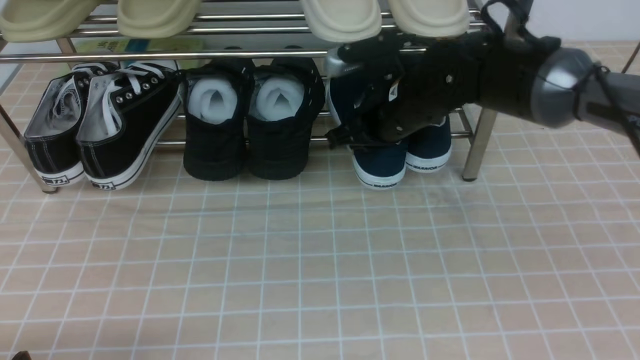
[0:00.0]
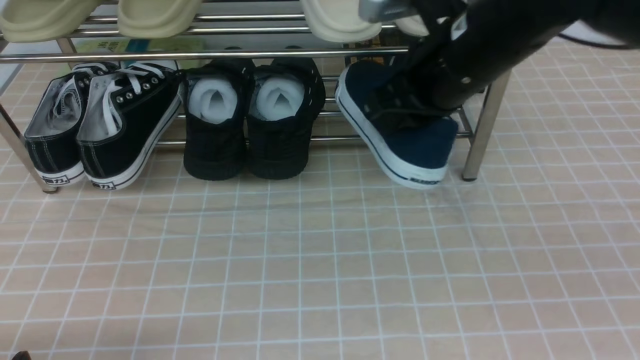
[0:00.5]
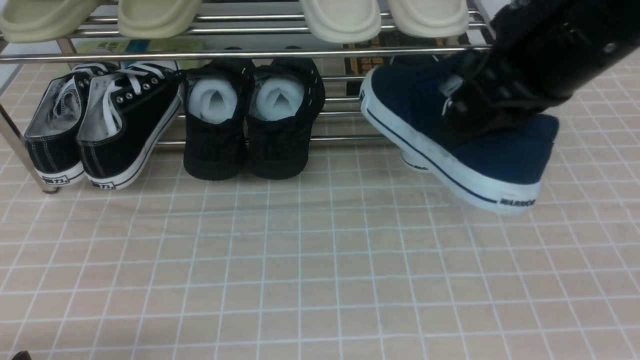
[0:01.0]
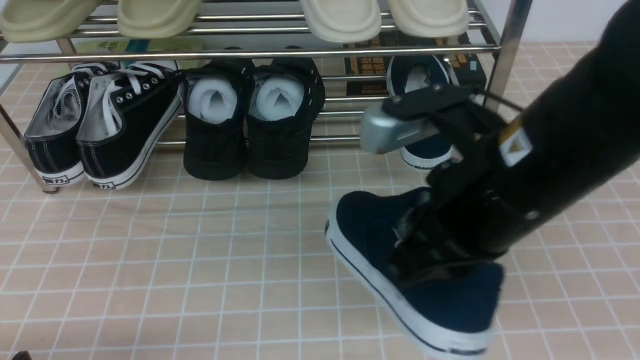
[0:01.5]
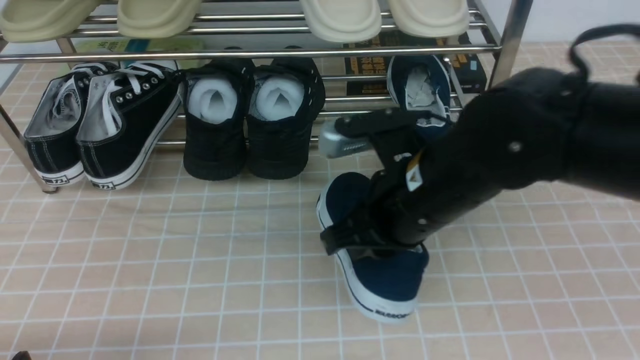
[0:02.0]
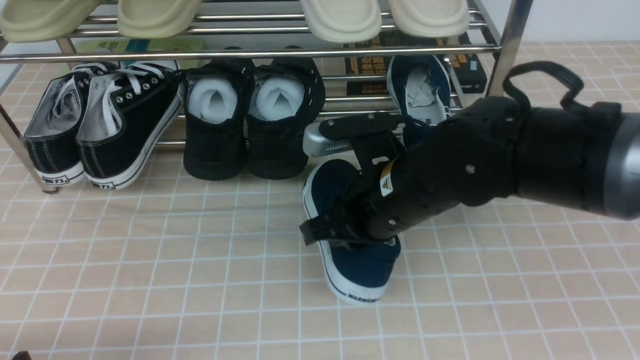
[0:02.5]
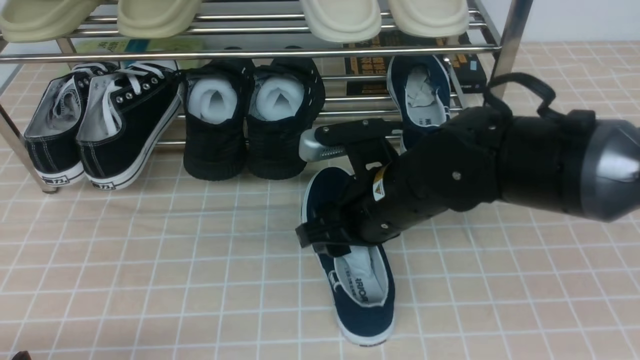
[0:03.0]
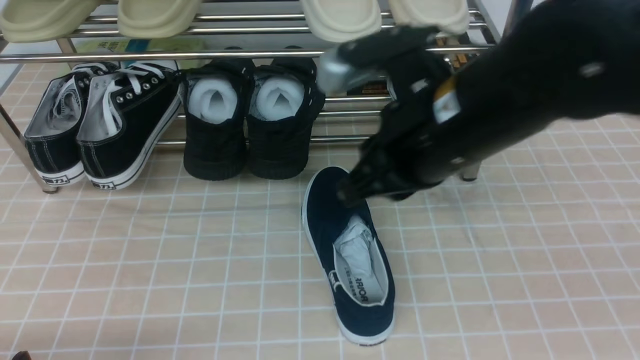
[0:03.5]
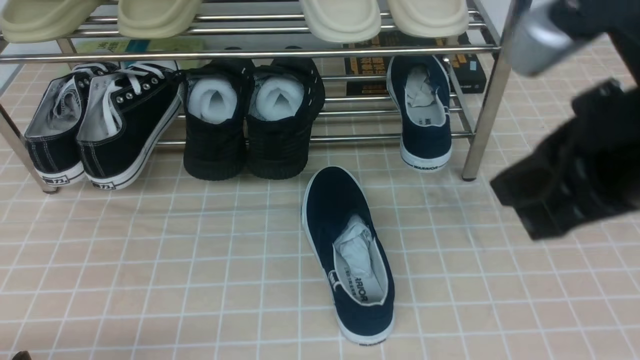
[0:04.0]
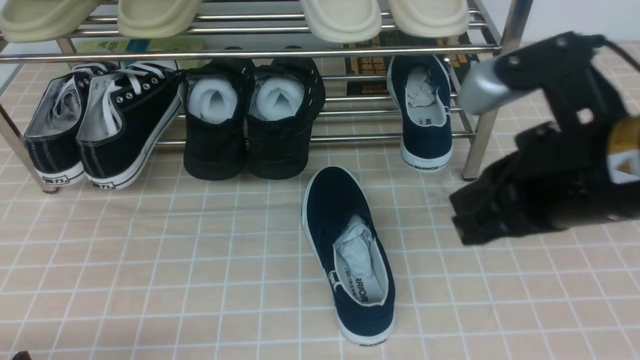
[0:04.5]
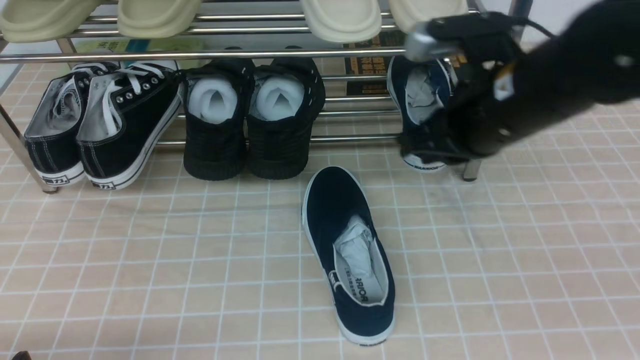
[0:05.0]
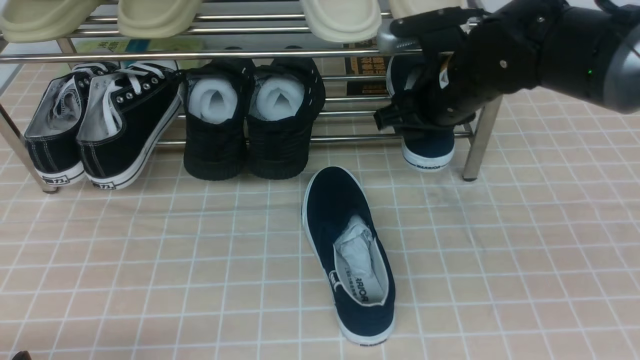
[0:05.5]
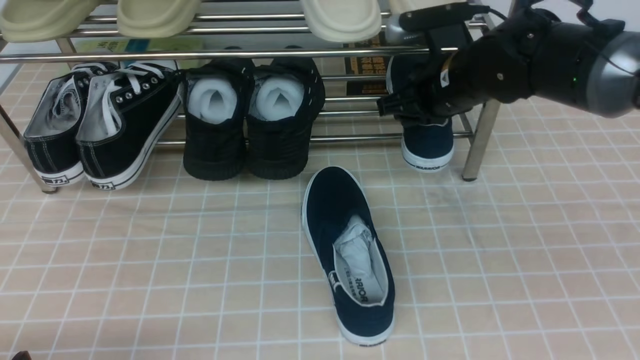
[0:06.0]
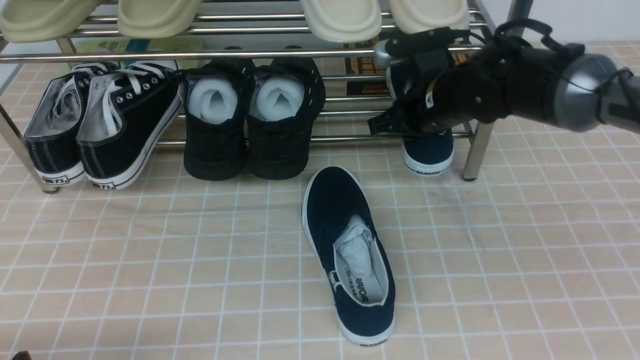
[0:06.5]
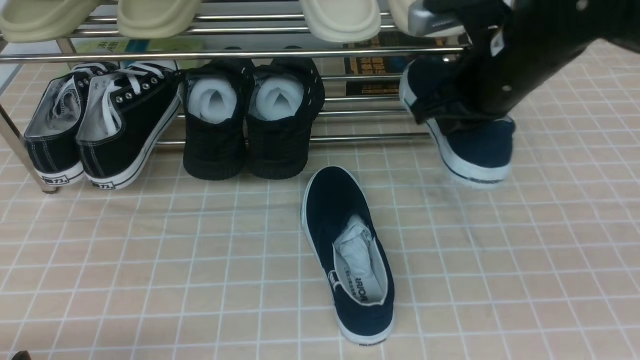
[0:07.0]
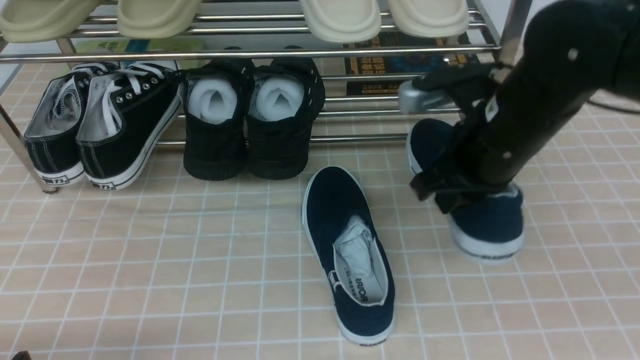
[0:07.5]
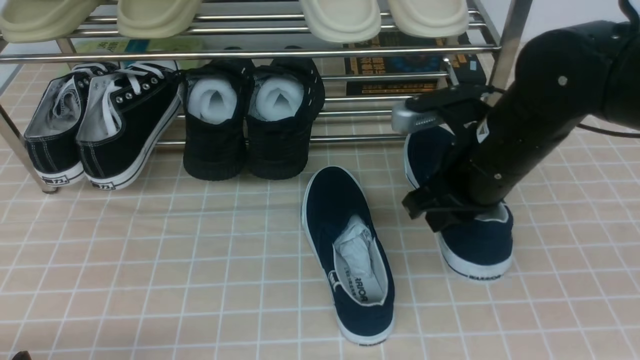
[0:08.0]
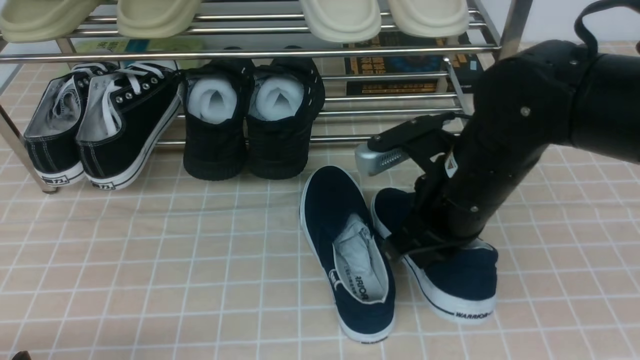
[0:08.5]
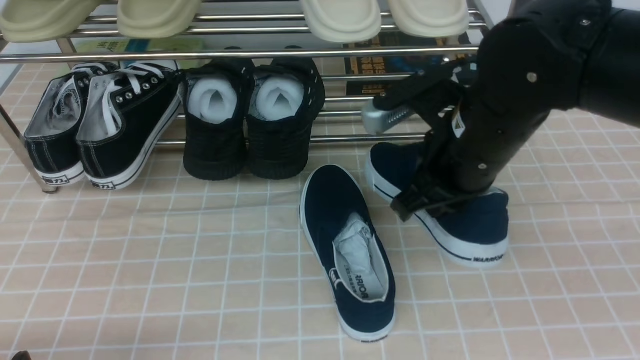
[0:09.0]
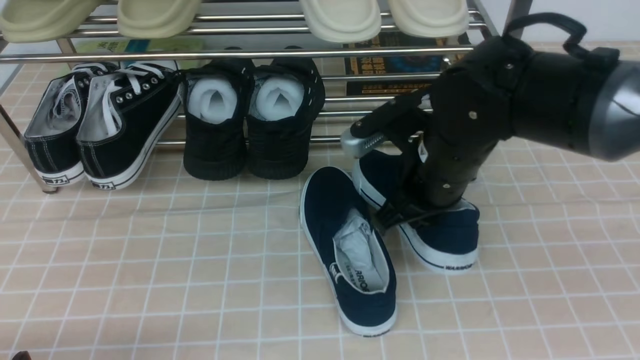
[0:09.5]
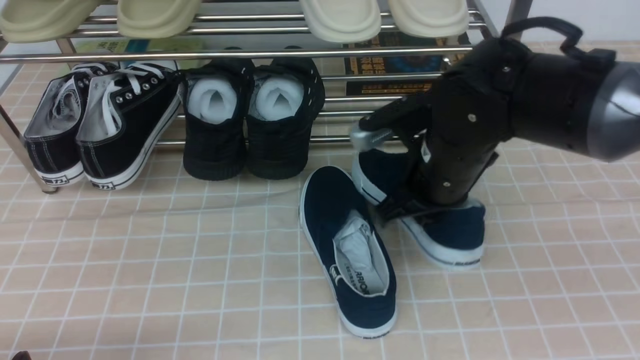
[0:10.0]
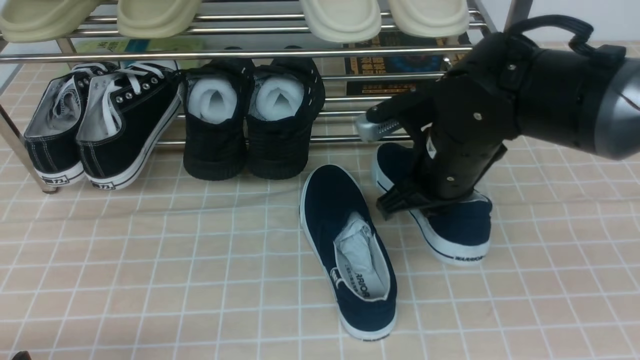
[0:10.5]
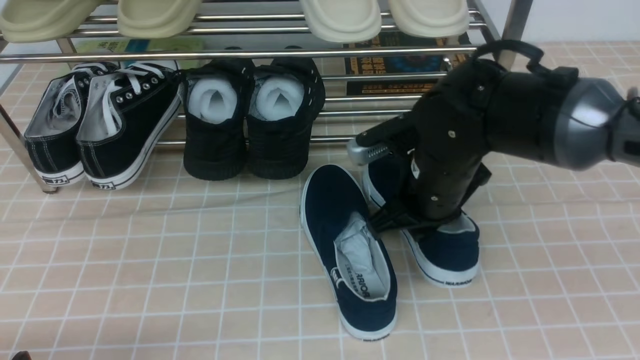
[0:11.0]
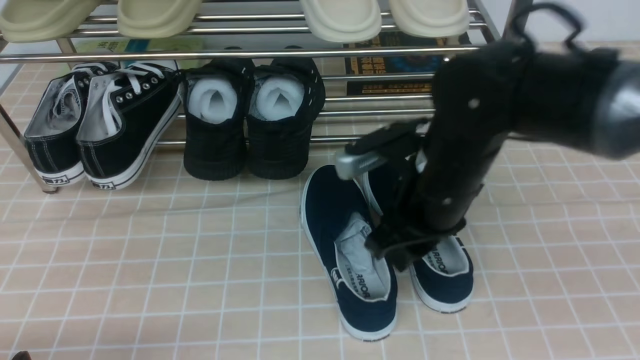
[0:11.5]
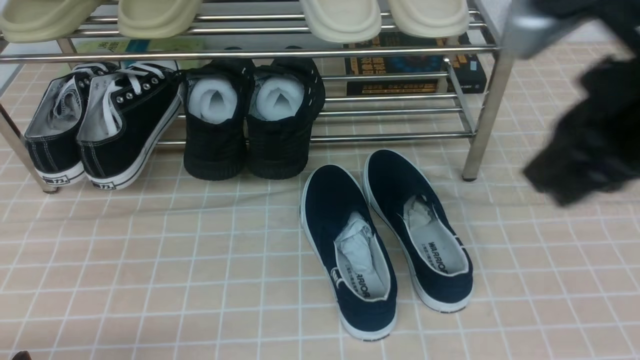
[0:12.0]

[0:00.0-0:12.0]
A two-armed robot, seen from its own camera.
Step, 0:00.5 to 0:03.0: use the right arm to take out the clamped shoe from the shoe rack and put it down.
Step, 0:03.5 to 0:06.0: use the right arm to clamp a shoe on the right side of the shoe rack.
Step, 0:06.5 to 0:11.0: use the right arm to take out the clamped shoe from the shoe rack and put it down.
0:00.0 to 0:02.0: The right gripper is displaced backward by approximately 15 cm.
0:02.0 to 0:04.0: The right gripper goes some 15 cm upward, to the right and backward, and opens, then closes once more.
0:04.0 to 0:06.0: The right gripper goes roughly 30 cm forward and downward, and opens up.
0:06.0 to 0:08.0: The right gripper travels backward by some 10 cm, and closes up.
0:08.0 to 0:10.0: The grippers stay close to where they were, moving slightly.
0:10.0 to 0:12.0: The right gripper heads upward, backward and to the right, covering roughly 20 cm, and opens, then closes again.

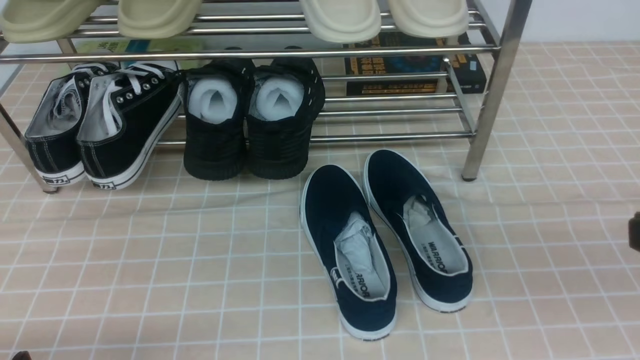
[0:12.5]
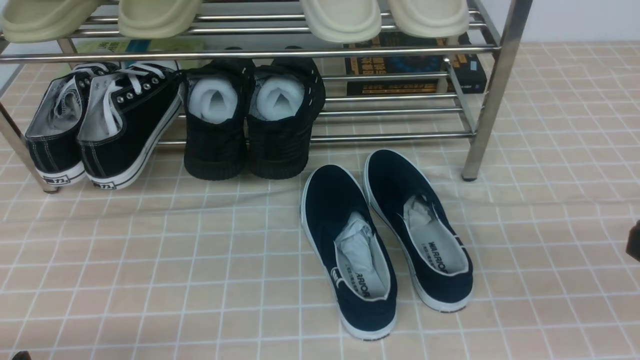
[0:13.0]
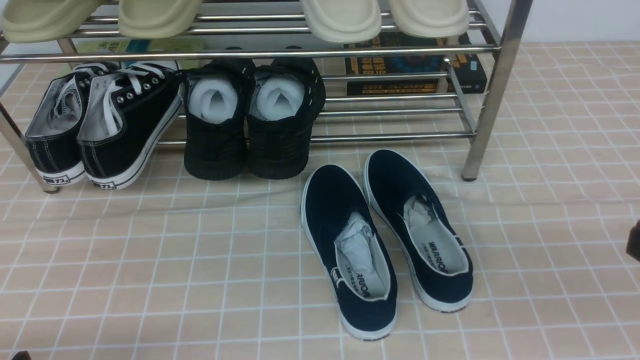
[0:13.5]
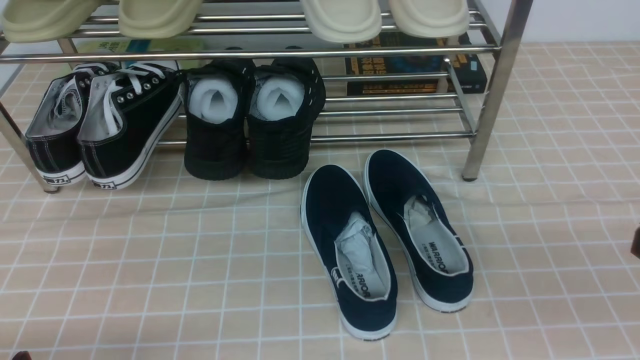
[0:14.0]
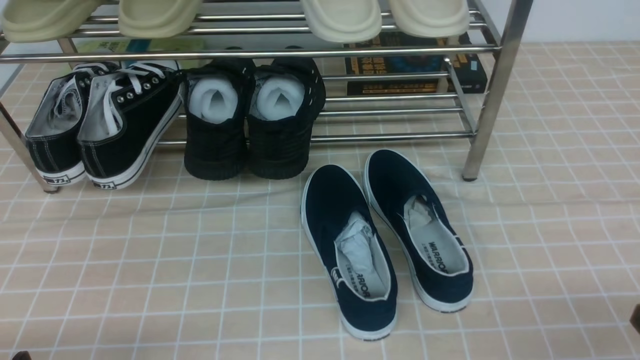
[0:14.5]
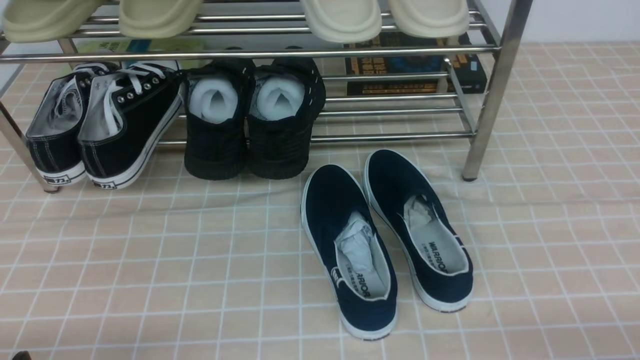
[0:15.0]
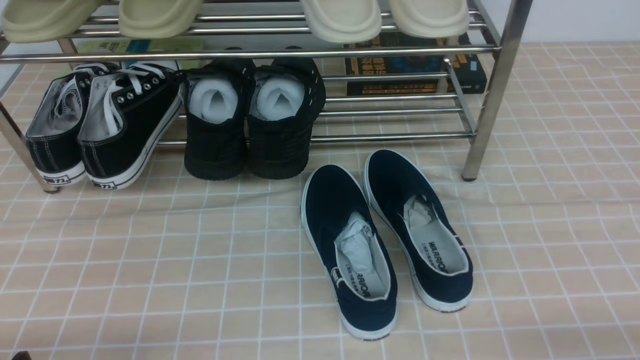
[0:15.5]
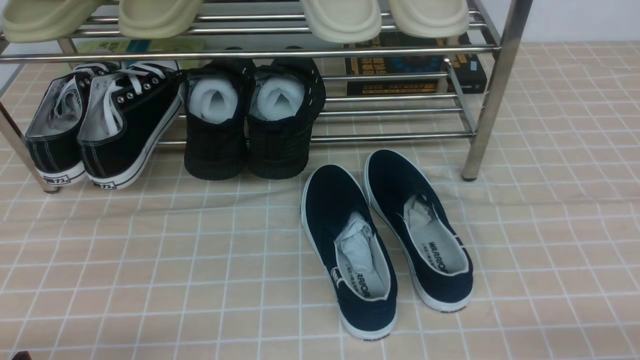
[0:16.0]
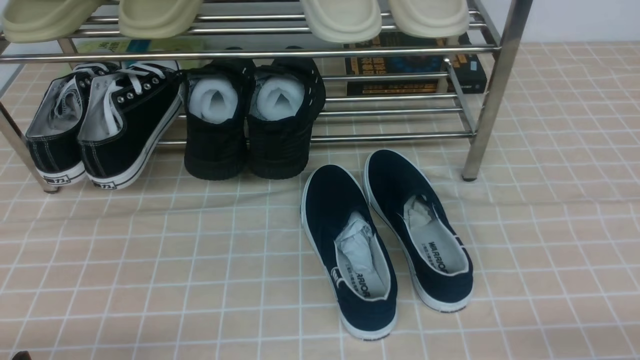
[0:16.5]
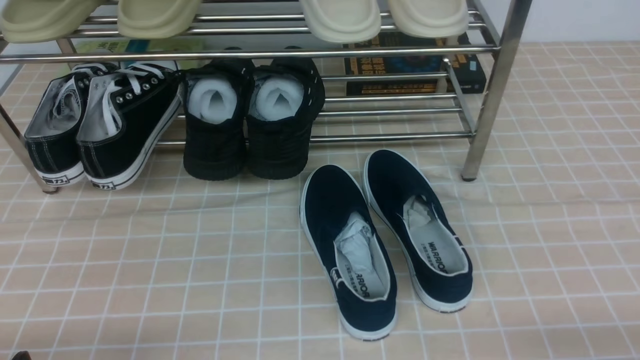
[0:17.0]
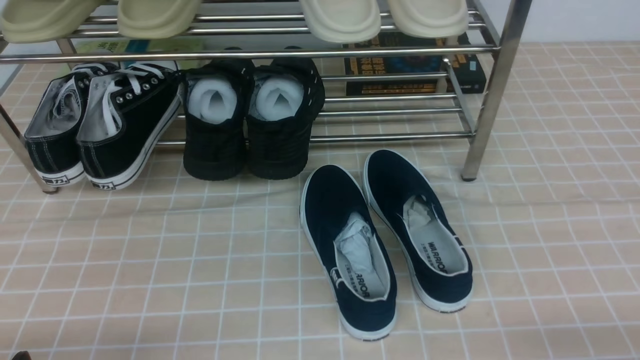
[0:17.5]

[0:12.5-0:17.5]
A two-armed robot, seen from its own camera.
0:12.5 to 0:15.0: The right gripper travels downward by approximately 20 cm.
0:15.0 to 0:17.5: Both grippers stay about where they are.
